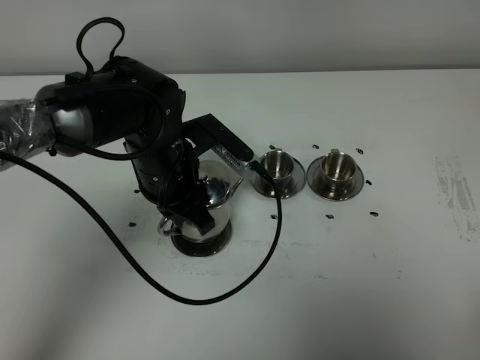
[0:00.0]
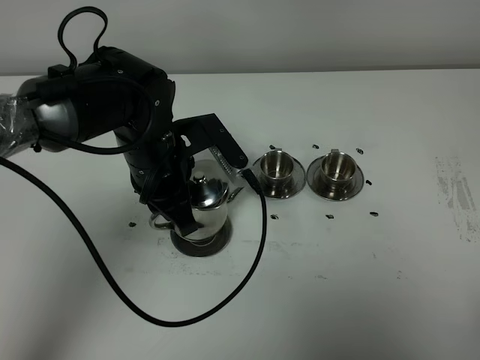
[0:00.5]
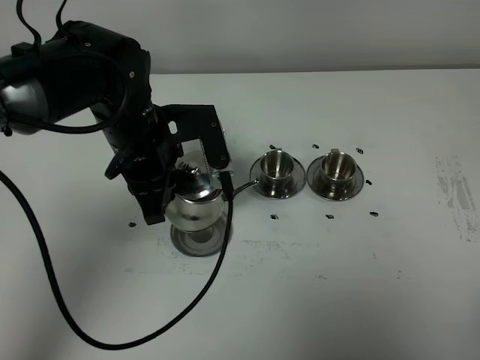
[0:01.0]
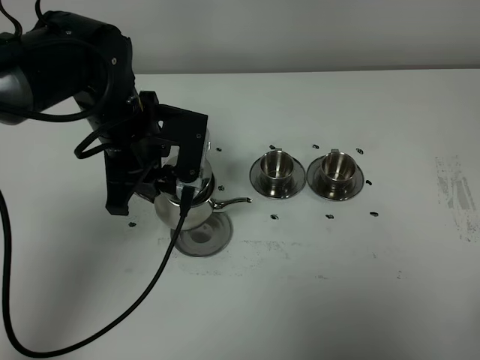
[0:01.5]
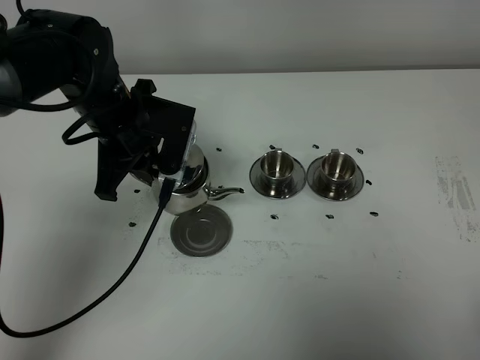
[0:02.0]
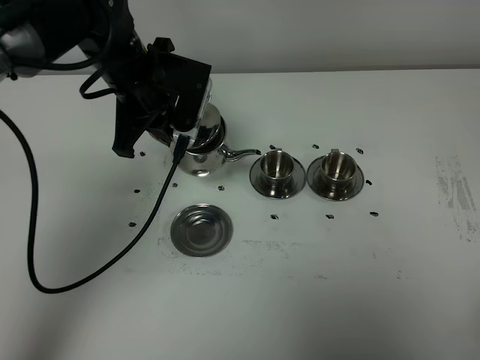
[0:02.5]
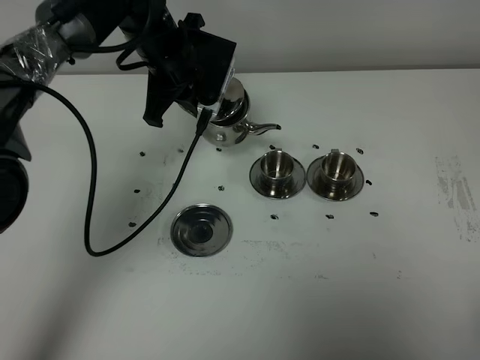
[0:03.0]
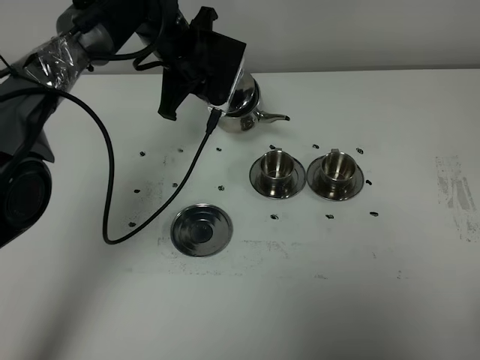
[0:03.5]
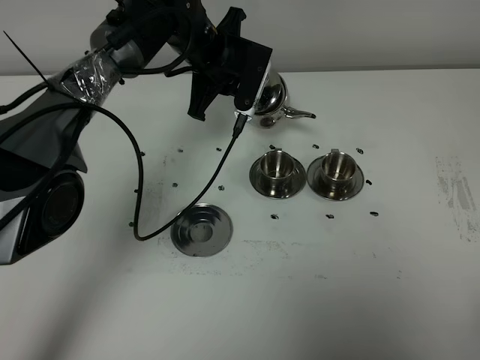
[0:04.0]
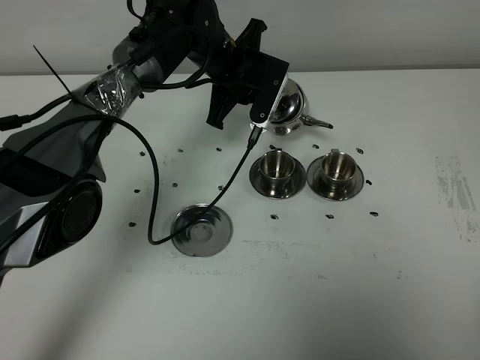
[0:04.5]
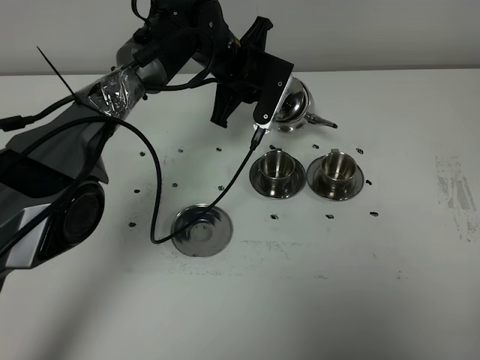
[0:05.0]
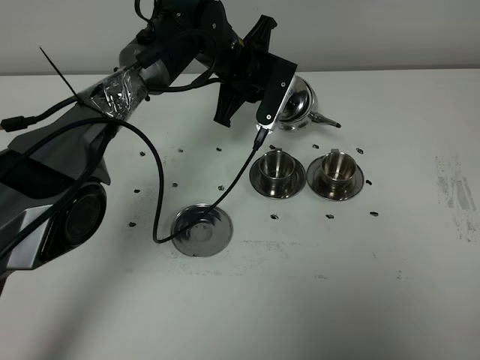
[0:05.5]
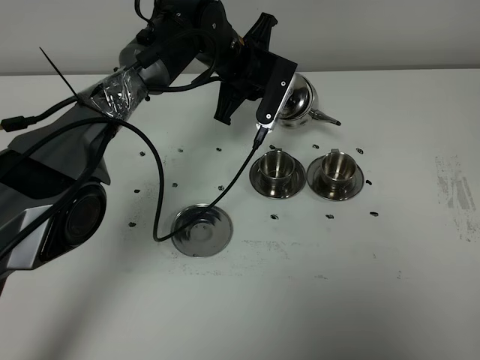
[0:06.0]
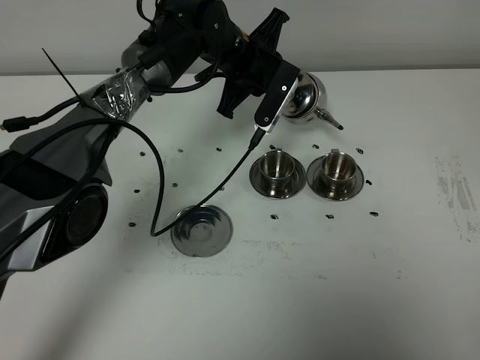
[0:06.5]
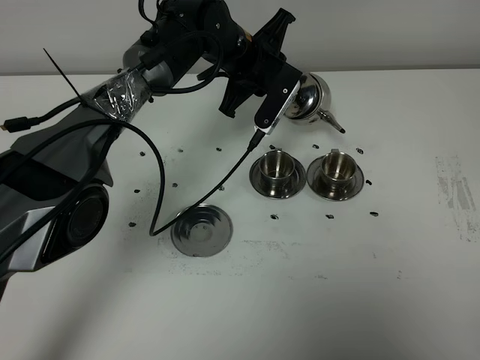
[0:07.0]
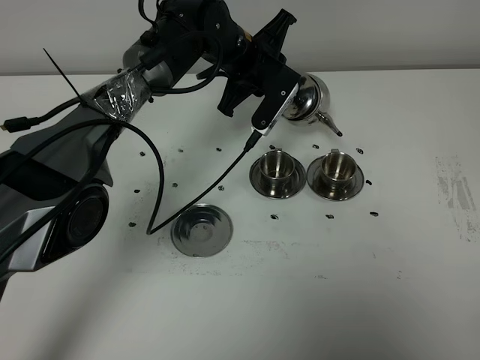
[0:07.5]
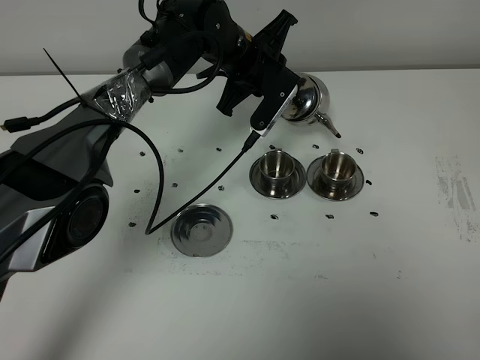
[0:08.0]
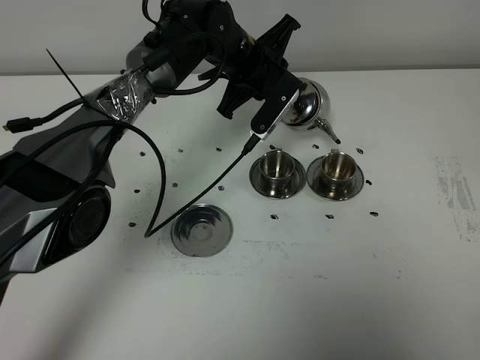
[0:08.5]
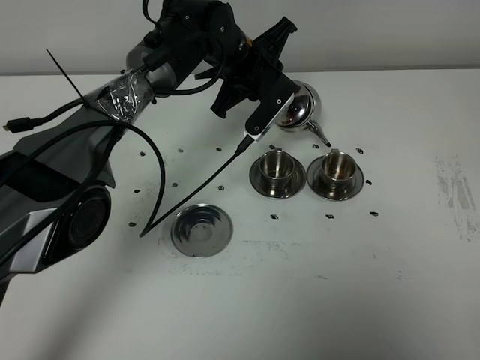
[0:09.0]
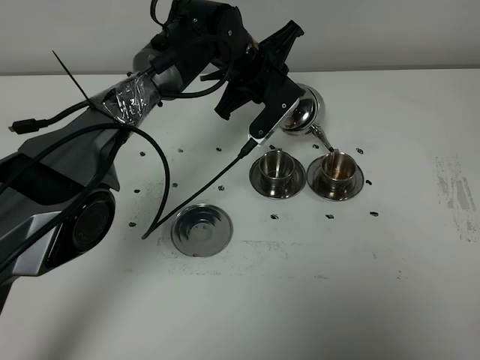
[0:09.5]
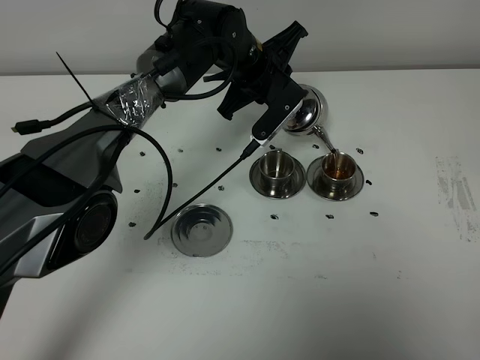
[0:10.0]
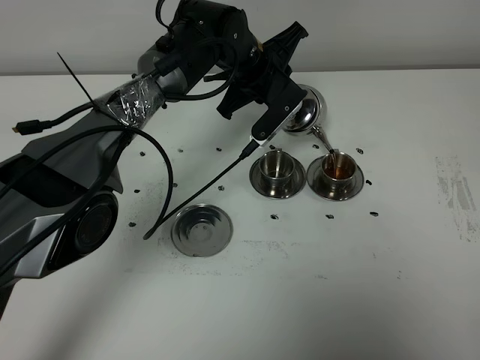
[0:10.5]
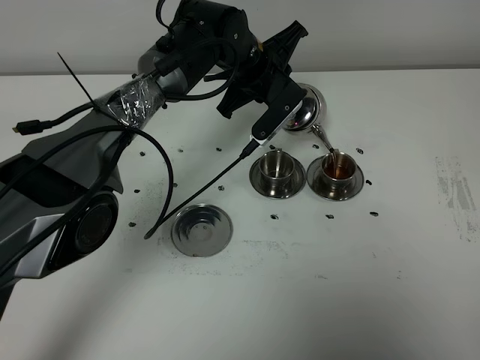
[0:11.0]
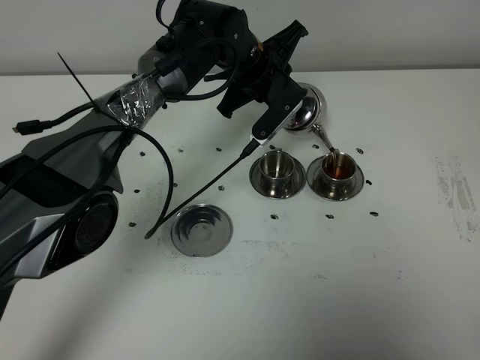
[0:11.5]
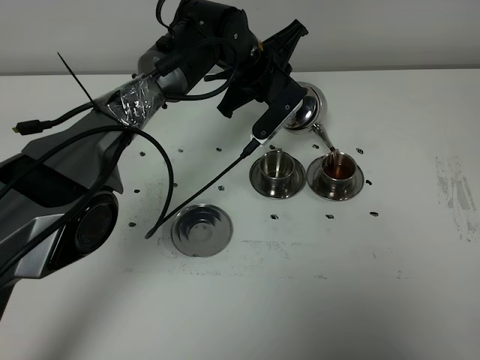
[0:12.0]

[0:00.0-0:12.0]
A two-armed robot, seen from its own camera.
Task of the whole recording: grasp the stainless steel teapot and pour the tea into the two stainless steel teacups one by one, put the stainless steel teapot back in its original place.
0:00.0 to 0:02.0: The left gripper moves to the left, some 5 cm.
0:02.0 to 0:04.0: The left gripper travels forward and to the right by about 15 cm.
0:04.0 to 0:06.0: There are only small adjustments of the grippers.
0:06.0 to 0:08.0: The grippers move only a little.
0:08.0 to 0:10.0: The grippers stay close to where they were, moving slightly.
0:10.0 to 0:12.0: Neither gripper changes place.

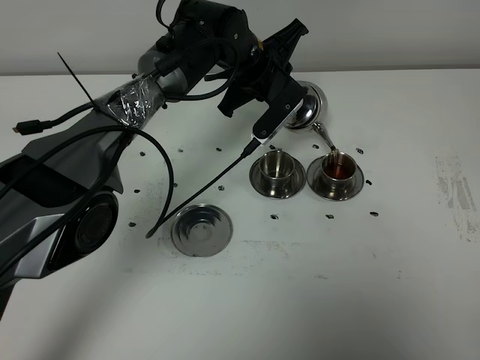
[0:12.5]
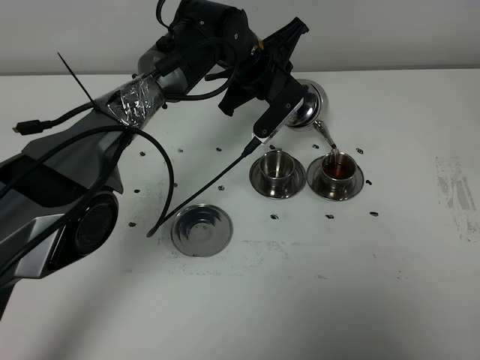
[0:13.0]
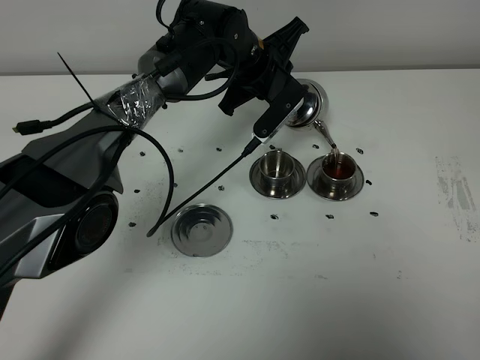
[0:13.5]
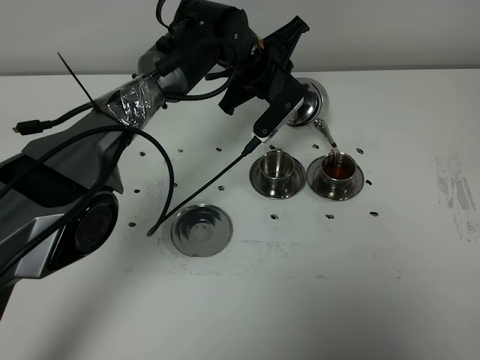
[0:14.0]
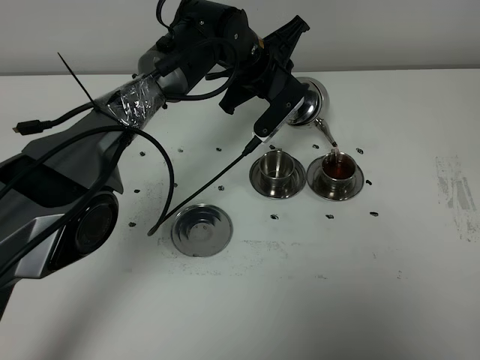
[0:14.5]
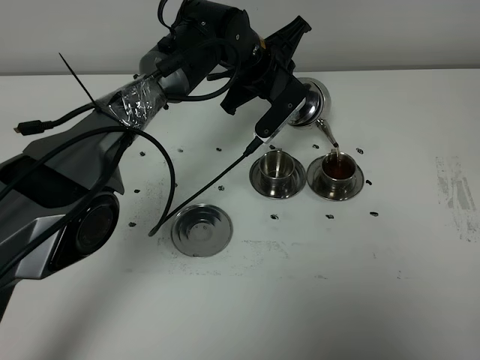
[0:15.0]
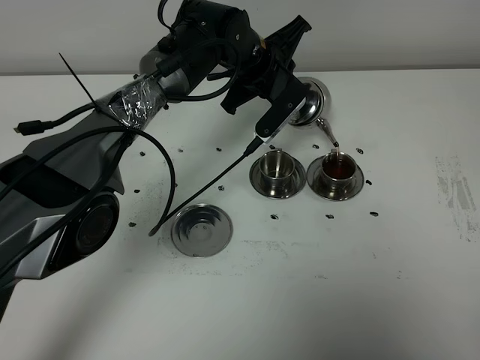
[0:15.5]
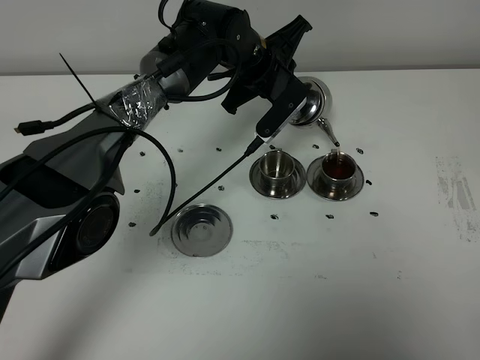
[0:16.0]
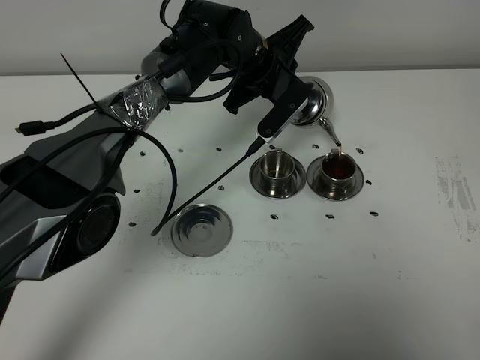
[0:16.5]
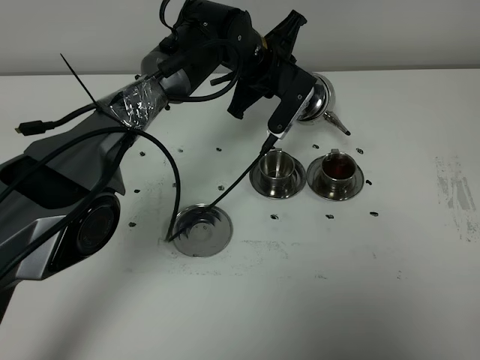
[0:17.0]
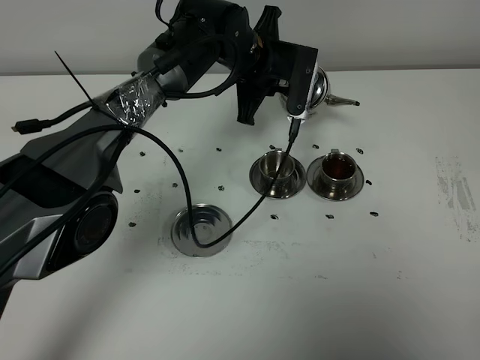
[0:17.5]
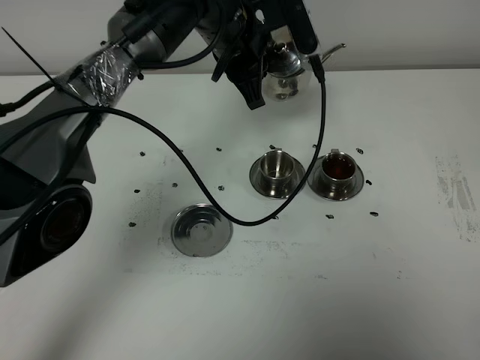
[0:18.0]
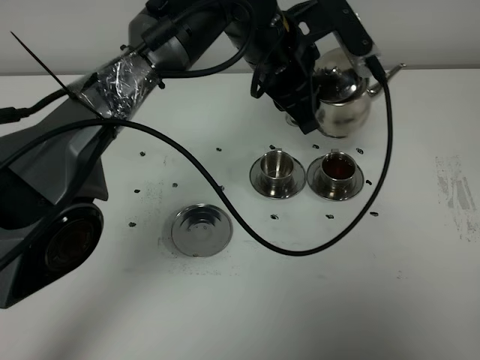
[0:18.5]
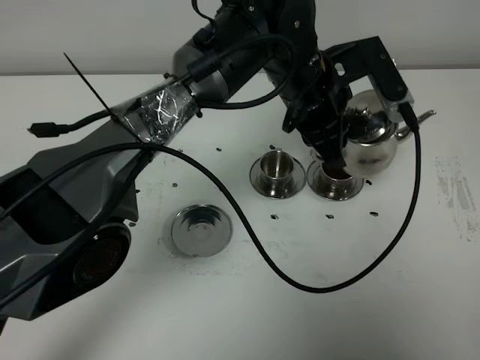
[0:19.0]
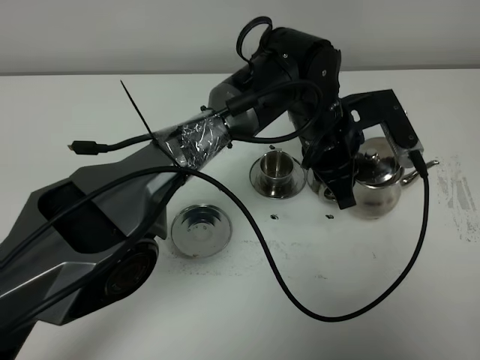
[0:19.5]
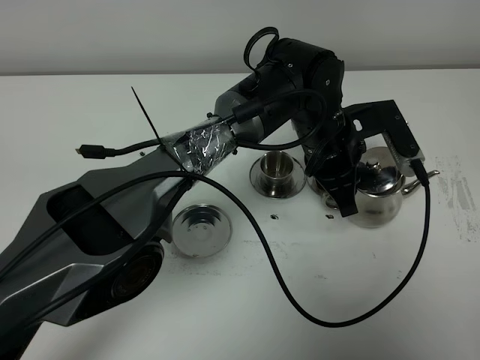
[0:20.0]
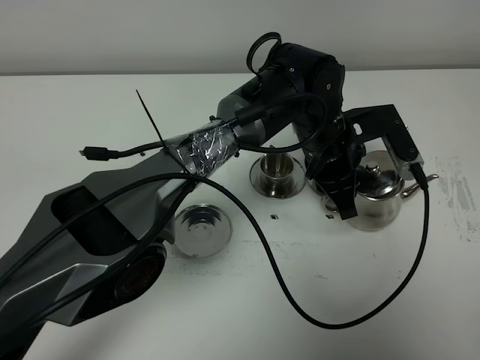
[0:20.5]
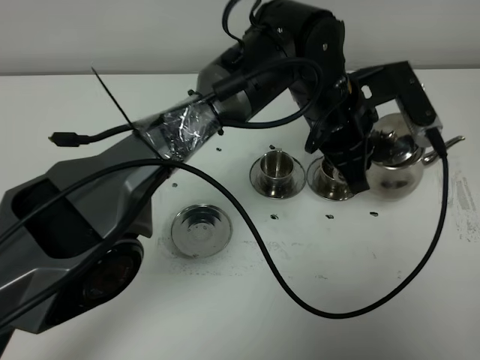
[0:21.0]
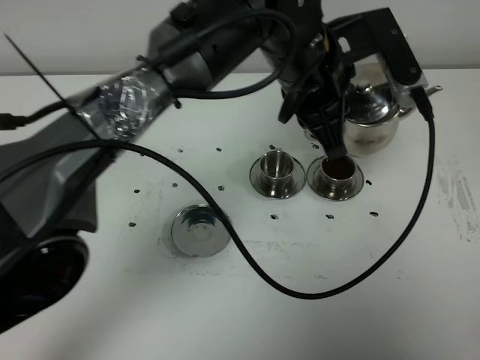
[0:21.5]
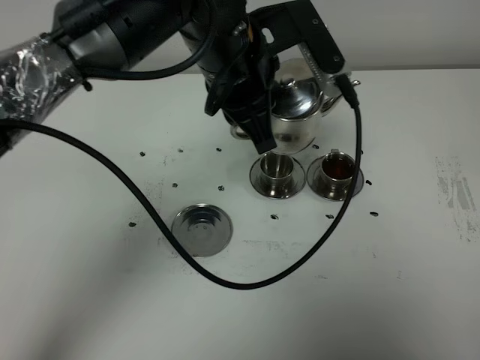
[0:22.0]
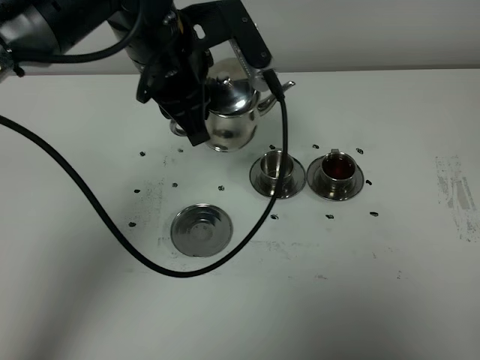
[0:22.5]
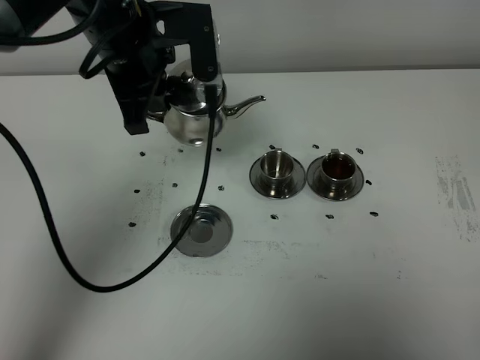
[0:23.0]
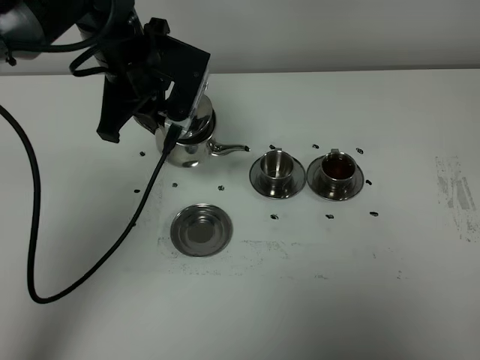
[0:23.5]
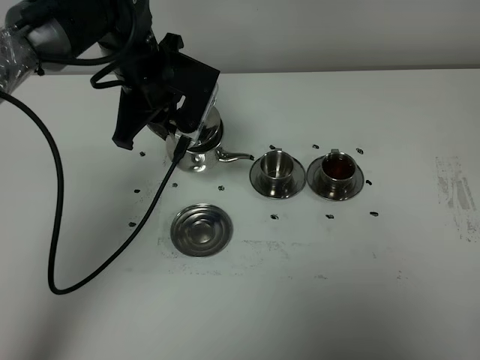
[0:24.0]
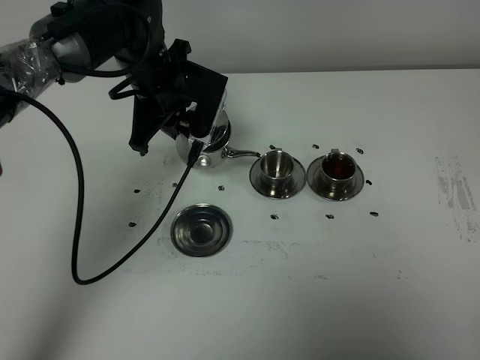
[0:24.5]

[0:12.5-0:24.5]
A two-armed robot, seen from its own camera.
Task of the whole recording: grasp the stainless steel teapot and pour the tea into the two stainless steel teacups one by one, put the stainless steel teapot back in its original place.
Step, 0:12.5 to 0:16.5: Pour tea into the teacup with the left gripper.
0:12.5 to 0:16.5: The two grippers keep their place.
0:16.5 to 0:18.5: The left gripper shifts some 10 cm backward and upward.
0:18.5 to 0:20.5: The left gripper shifts approximately 10 cm downward and to the right.
0:20.5 to 0:22.5: The left gripper travels to the left and upward by approximately 20 cm.
0:22.5 to 0:24.5: The left gripper heads downward and forward, covering about 10 cm.

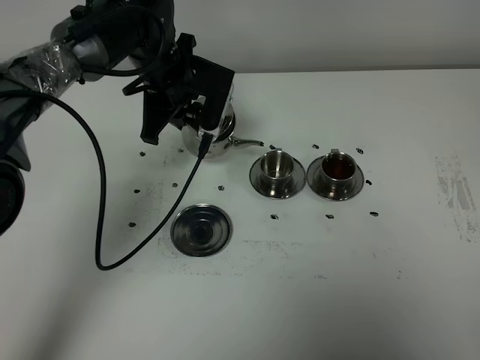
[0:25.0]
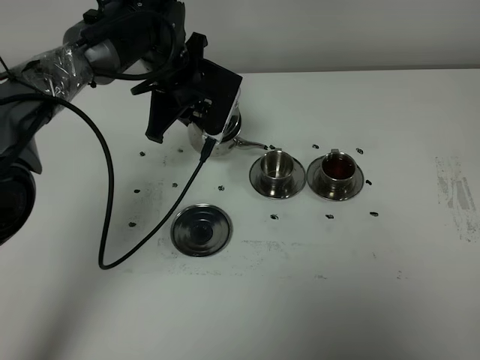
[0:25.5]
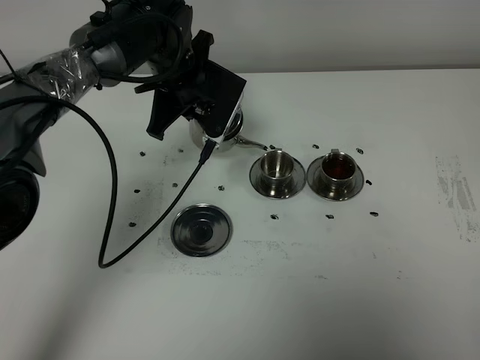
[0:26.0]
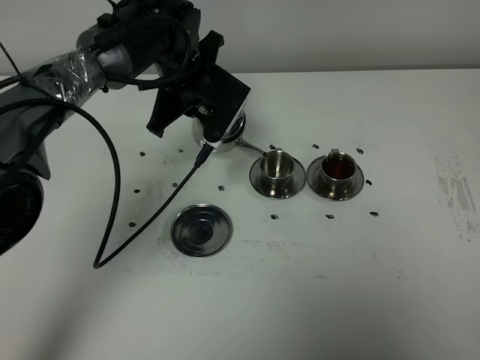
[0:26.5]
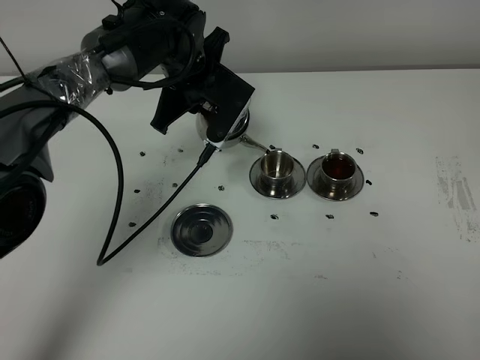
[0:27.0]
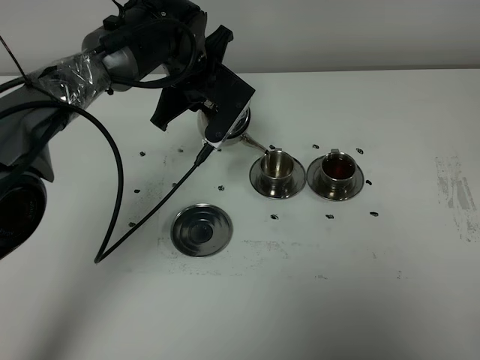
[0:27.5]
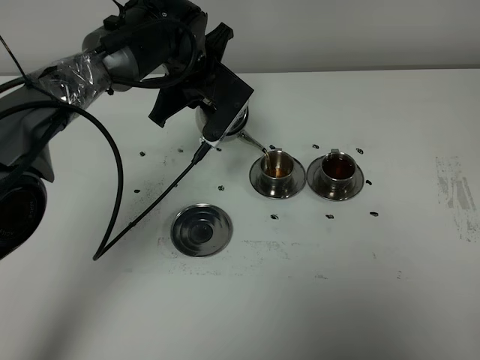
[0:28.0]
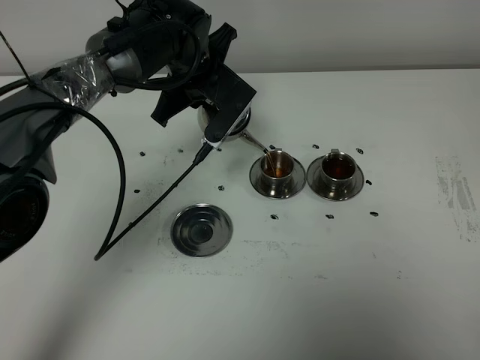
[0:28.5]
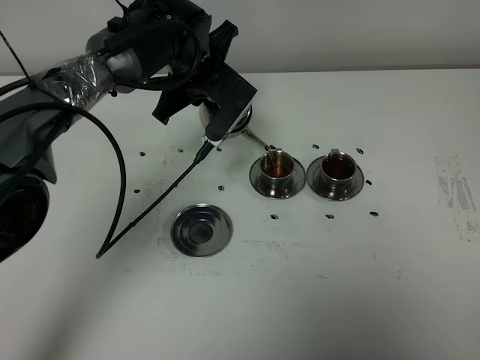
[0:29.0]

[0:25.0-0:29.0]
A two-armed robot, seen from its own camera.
Task of the whole recording: grasp the stainless steel teapot and pour the tea into the two stainless steel teacups one by one, put the stainless steel teapot back in its original place.
0:25.0 to 0:27.0: The grippers stay close to where they were, moving slightly.
0:27.0 to 0:29.0: The grippers move only a little.
